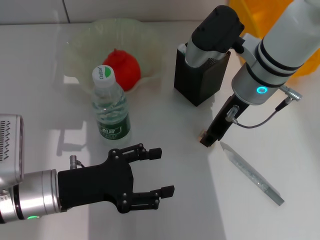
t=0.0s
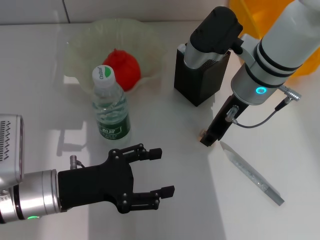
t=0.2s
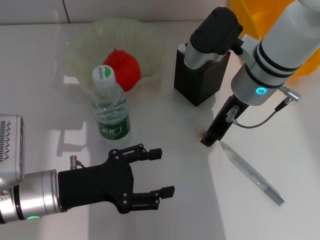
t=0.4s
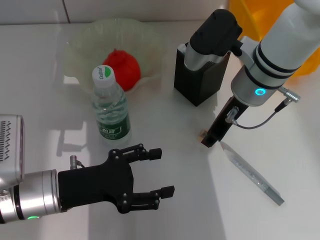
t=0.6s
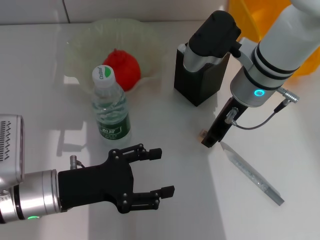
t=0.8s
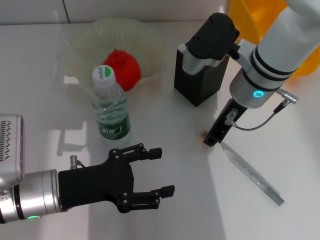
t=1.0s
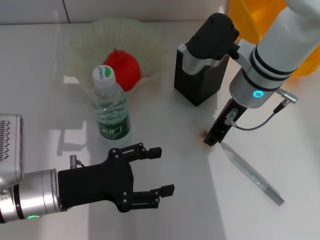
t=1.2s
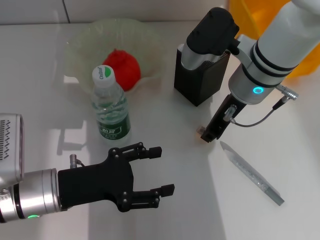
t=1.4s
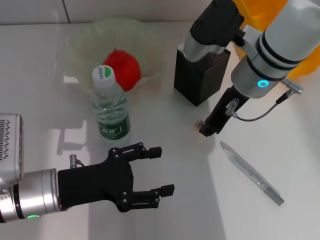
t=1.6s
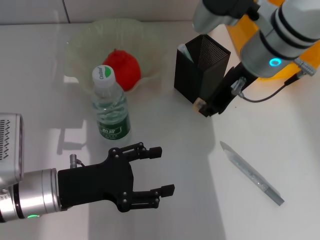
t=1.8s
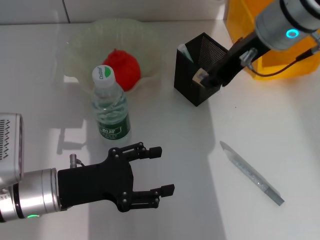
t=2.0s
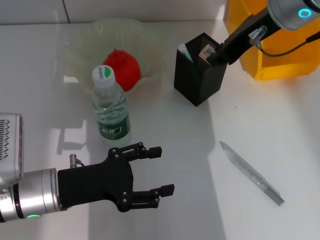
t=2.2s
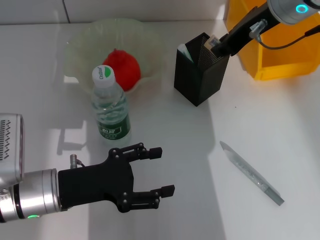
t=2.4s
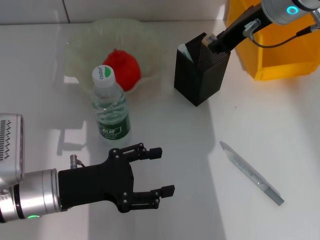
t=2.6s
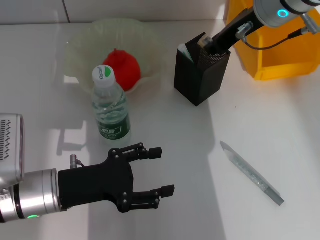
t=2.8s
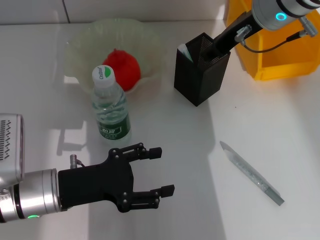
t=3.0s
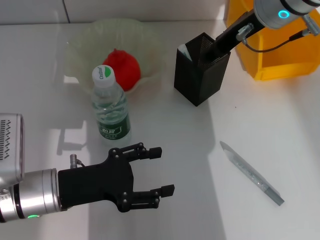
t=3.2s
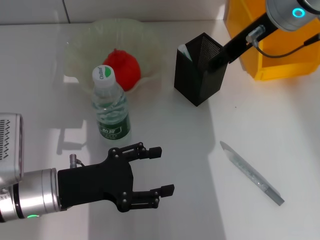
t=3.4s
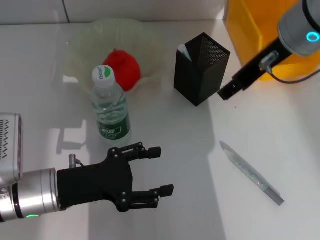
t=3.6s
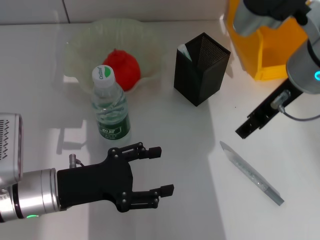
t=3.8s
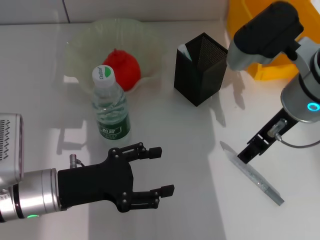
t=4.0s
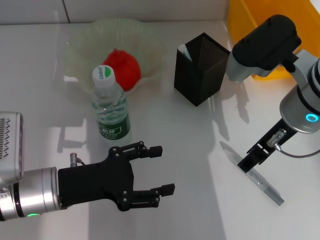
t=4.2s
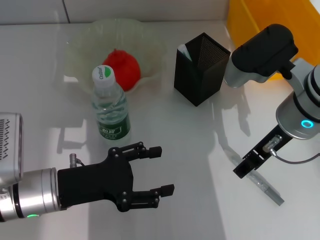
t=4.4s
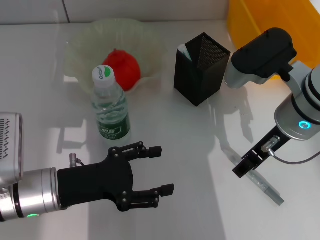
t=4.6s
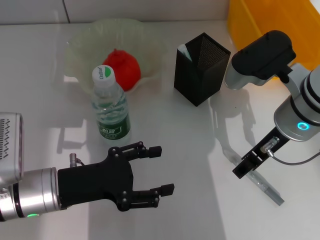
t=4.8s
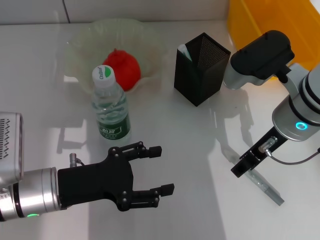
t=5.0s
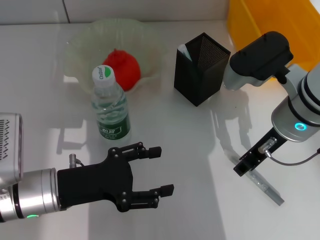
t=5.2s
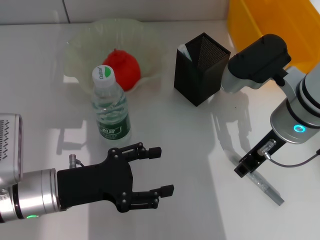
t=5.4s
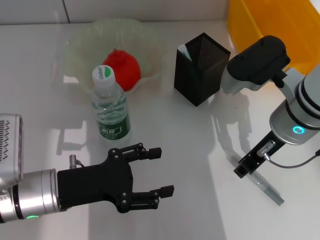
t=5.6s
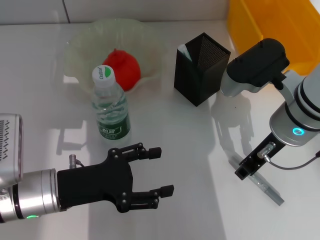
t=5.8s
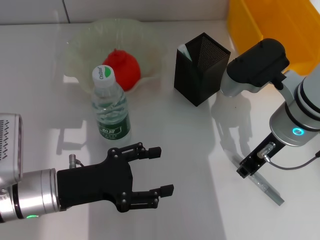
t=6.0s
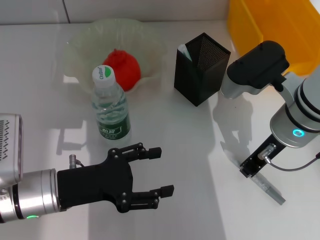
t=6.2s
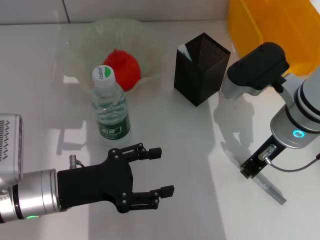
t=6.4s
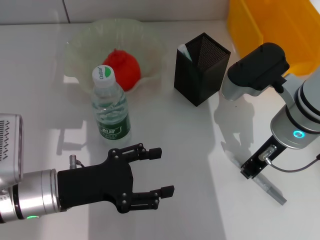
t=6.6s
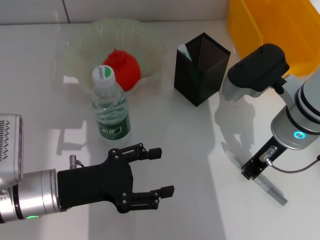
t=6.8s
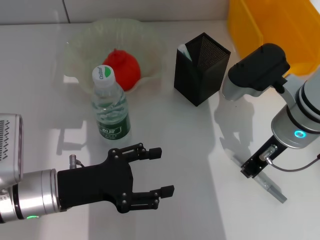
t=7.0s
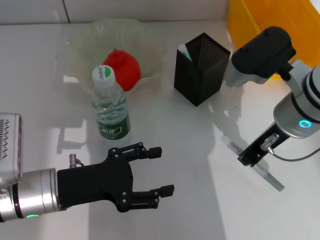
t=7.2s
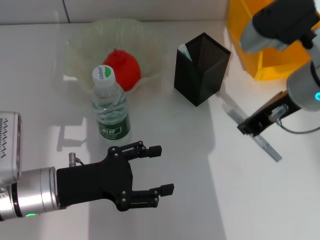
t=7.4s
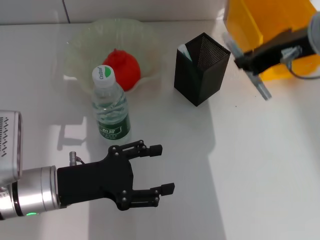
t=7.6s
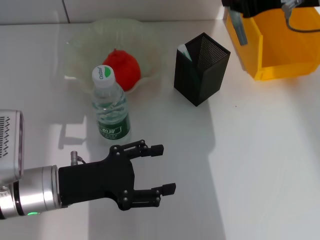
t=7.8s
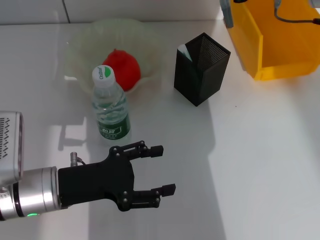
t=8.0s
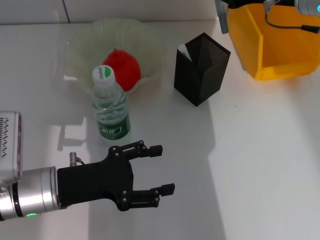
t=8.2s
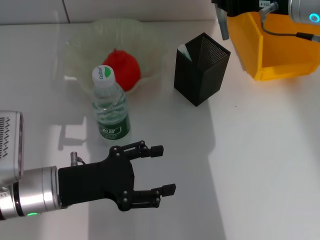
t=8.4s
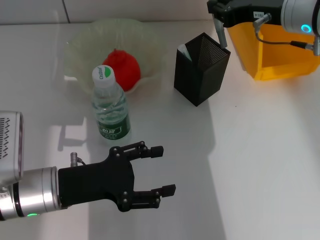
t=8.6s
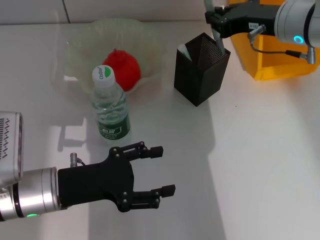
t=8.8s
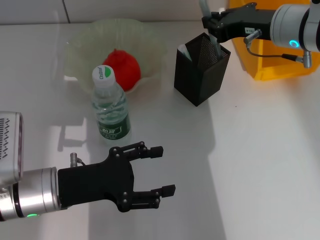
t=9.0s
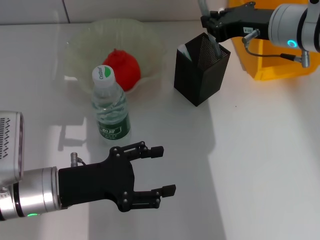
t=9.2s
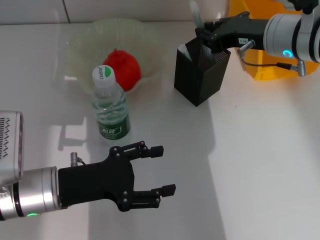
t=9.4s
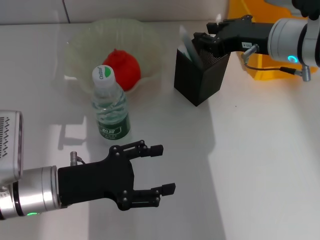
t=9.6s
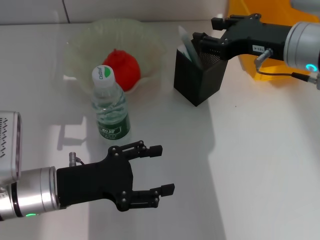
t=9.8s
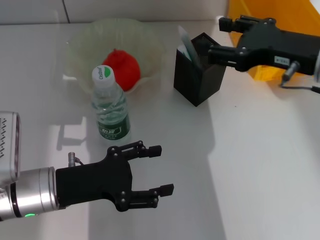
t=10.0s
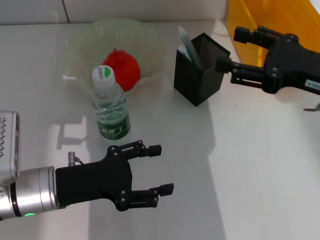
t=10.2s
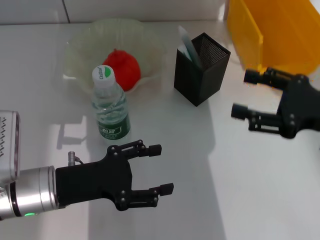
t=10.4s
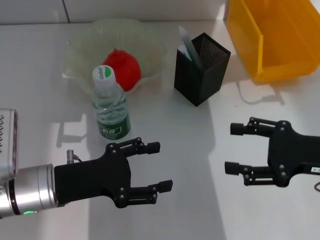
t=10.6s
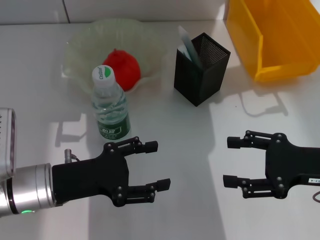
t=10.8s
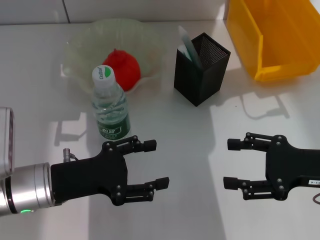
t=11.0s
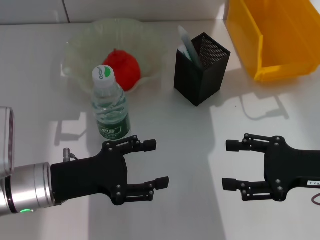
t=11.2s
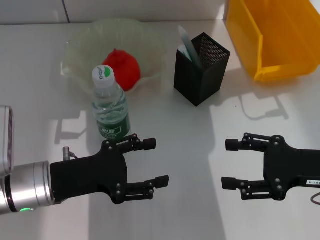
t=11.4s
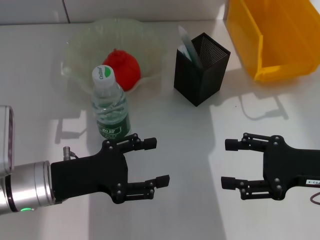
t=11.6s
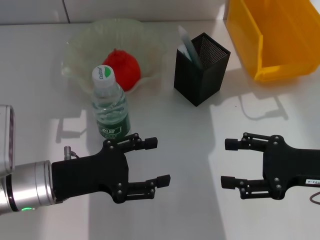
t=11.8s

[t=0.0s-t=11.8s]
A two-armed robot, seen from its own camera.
Step, t=1.2s to t=3.0s: Put the eraser into the pen holder with the right hand.
Step, t=3.2s to t=6.2s: Grab the gray glue with the right hand.
Step, t=6.4s to t=9.8s: Place the gray glue into the pen holder with the right hand.
t=0.0s to t=1.4s: Neither gripper changes place.
t=1.4s to t=3.0s: The right gripper shifts approximately 5 cm upward.
t=3.0s to t=4.4s: The right gripper travels backward and downward by about 10 cm, and opens up.
t=4.4s to t=6.0s: The right gripper closes up.
t=6.0s to t=7.4s: The right gripper travels upward by about 5 cm, and closes its fingers.
t=7.4s to t=8.8s: The right gripper heads forward, covering approximately 5 cm, and moves approximately 5 cm upward and comes back.
t=8.8s to t=10.4s: The right gripper shifts some 15 cm backward and to the right, and opens up.

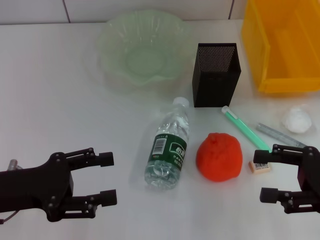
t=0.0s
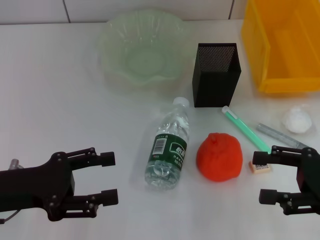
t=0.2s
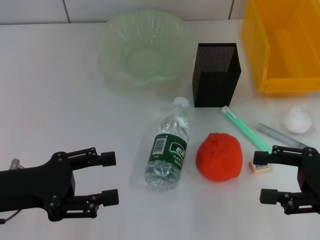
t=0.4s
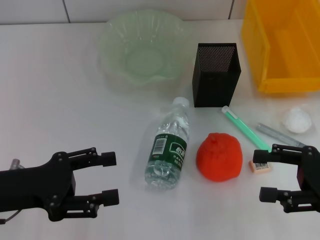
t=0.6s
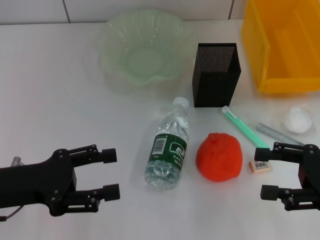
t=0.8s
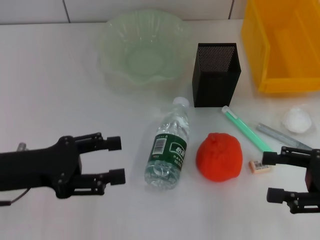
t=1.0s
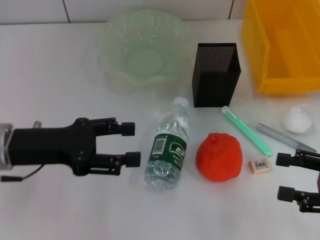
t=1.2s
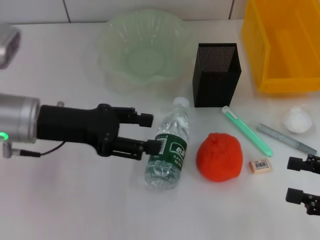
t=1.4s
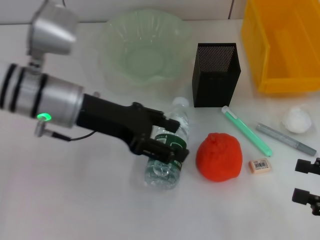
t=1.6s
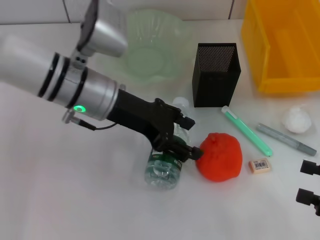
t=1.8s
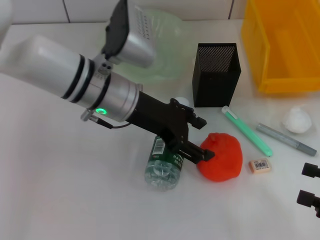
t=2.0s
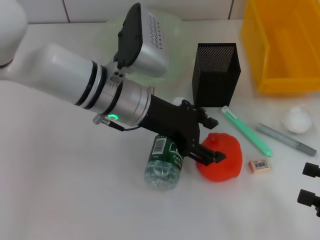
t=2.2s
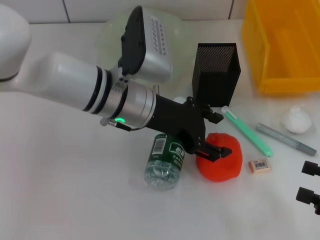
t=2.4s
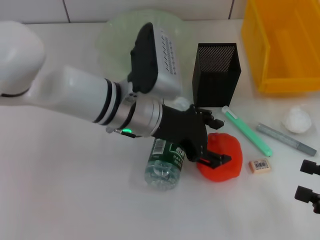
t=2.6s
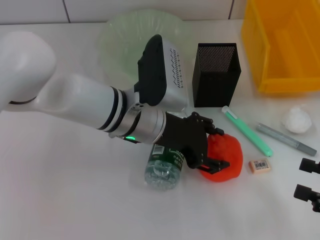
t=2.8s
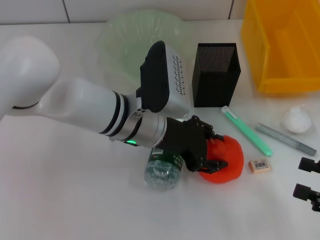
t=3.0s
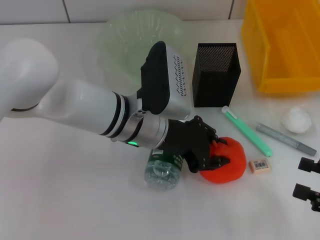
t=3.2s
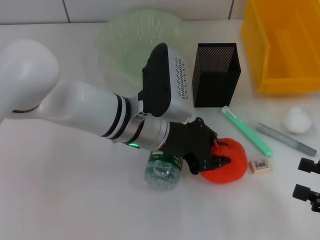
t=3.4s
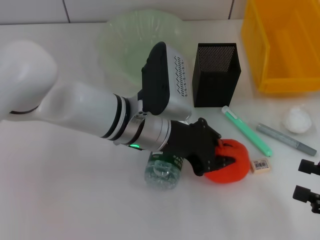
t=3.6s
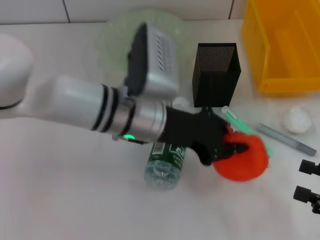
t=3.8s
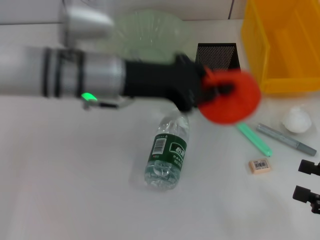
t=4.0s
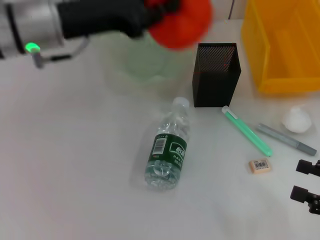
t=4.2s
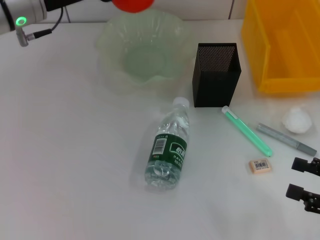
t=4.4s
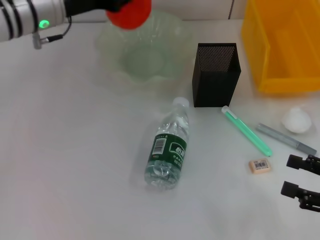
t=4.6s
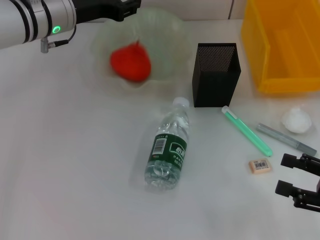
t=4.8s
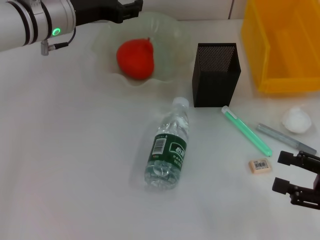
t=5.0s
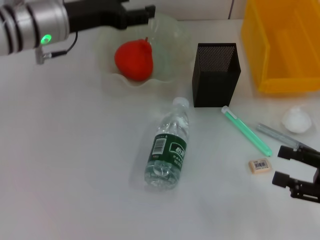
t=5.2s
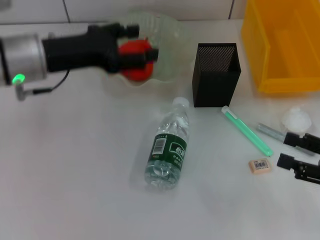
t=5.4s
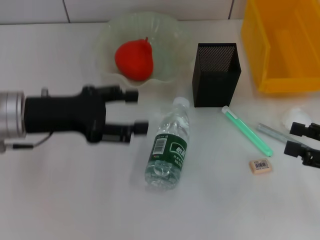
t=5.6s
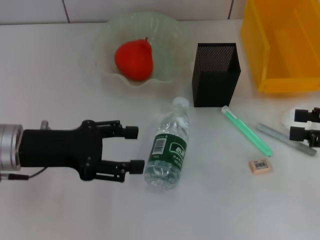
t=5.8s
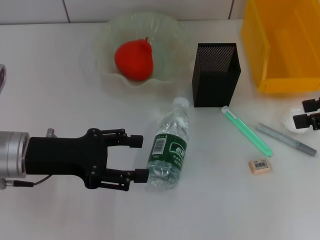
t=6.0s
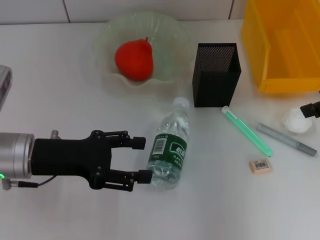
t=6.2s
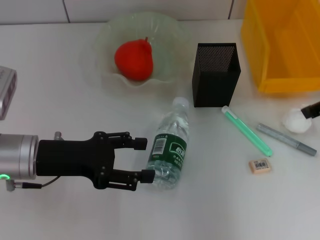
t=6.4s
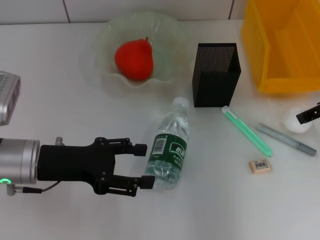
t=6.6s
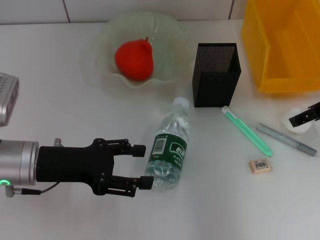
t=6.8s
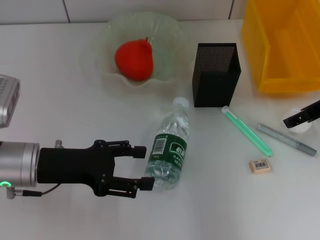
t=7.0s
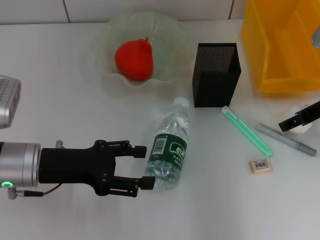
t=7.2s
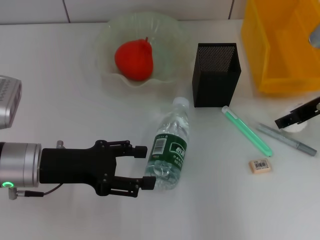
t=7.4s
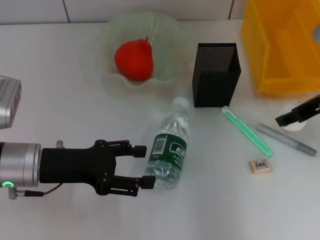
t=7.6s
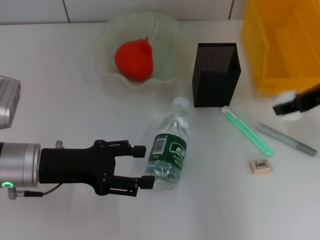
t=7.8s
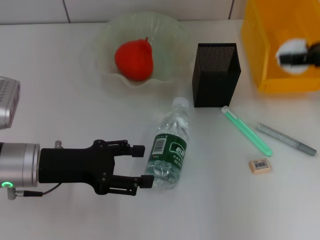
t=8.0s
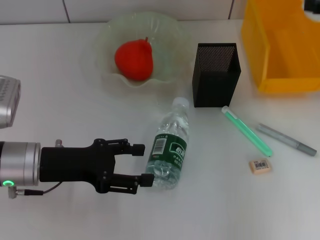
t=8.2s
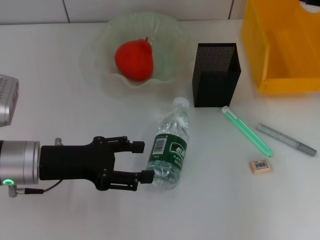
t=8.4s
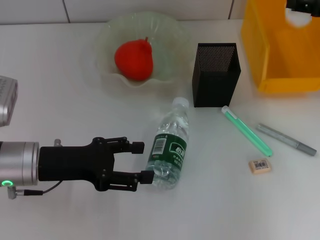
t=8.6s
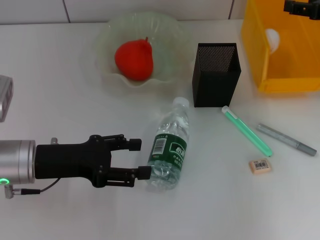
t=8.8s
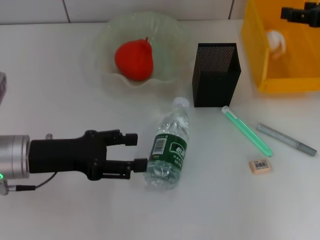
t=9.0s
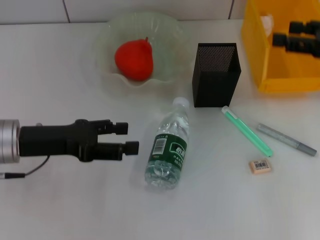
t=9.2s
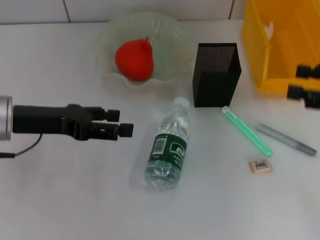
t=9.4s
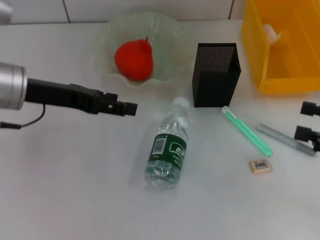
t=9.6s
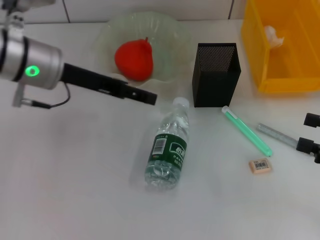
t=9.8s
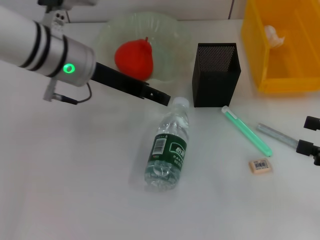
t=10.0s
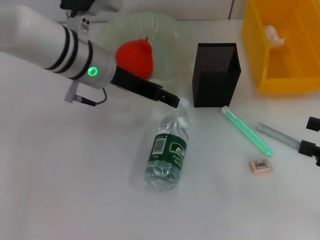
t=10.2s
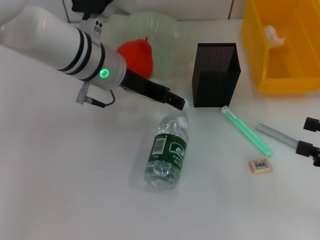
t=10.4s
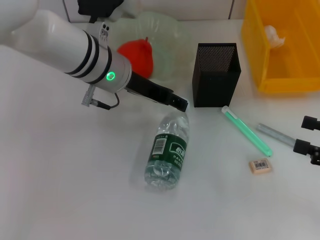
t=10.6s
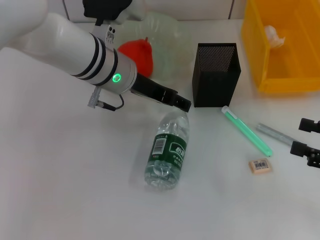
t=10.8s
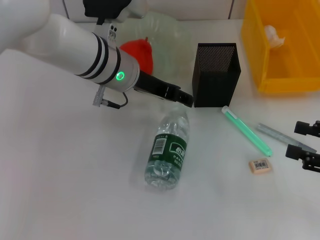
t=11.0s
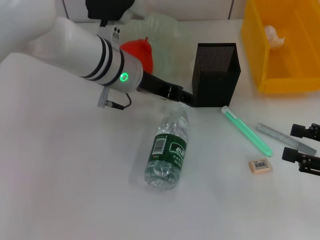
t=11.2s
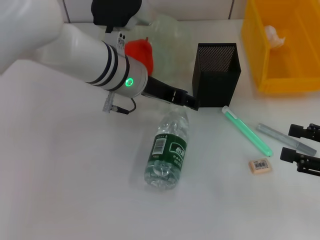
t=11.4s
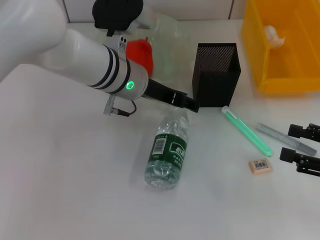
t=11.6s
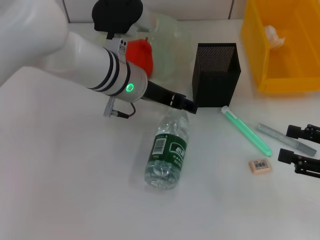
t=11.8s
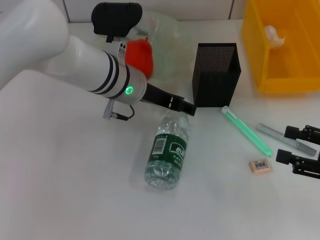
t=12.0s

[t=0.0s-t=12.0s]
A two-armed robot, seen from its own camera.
Step, t=0.0s to t=3.2s: Grab the orange with the left hand.
Step, t=3.4s to t=5.0s: Place the orange into the fruit bowl with the left hand.
Step, t=5.2s to t=7.0s: Grab the paper ball with the right hand.
Step, t=7.2s to t=9.0s: Place the paper ball into the trash can with the right hand.
t=0.0s to t=1.6s: The left gripper travels forward, to the right and upward by approximately 15 cm. Meanwhile the right gripper changes place by roughly 5 cm.
t=1.6s to t=3.0s: The left gripper shifts about 10 cm to the right.
t=3.0s to t=4.4s: The left gripper goes about 20 cm to the left, upward and forward, and closes up.
t=4.4s to t=6.0s: The left gripper travels backward and downward by roughly 15 cm, and opens its fingers. The right gripper heads forward and upward, covering roughly 20 cm.
t=6.0s to t=7.6s: The right gripper travels to the left and forward by about 10 cm.
t=9.0s to t=10.4s: The right gripper travels backward and downward by some 20 cm, while the left gripper is displaced to the right, forward and upward by roughly 20 cm.
t=10.4s to t=12.0s: The grippers make only small movements.
